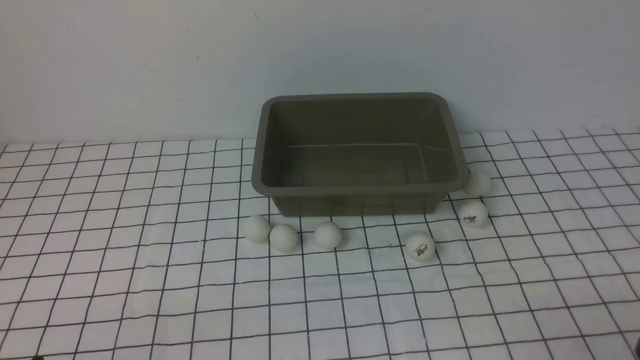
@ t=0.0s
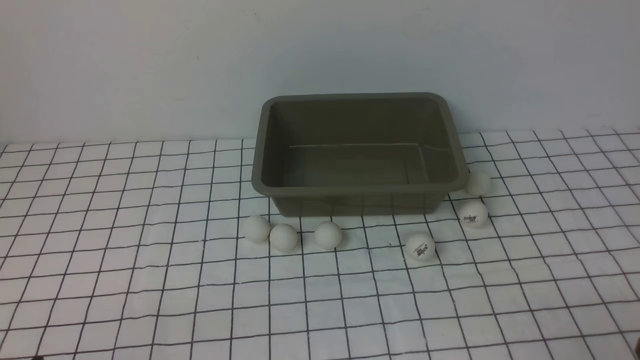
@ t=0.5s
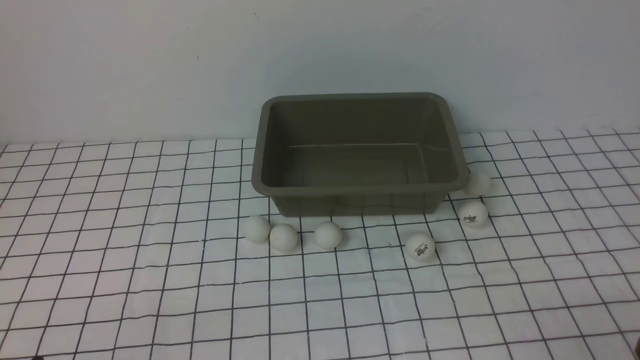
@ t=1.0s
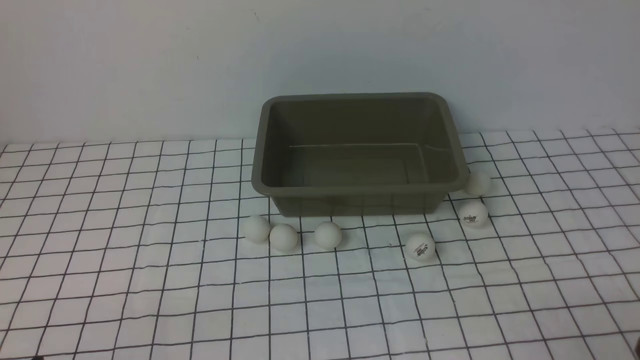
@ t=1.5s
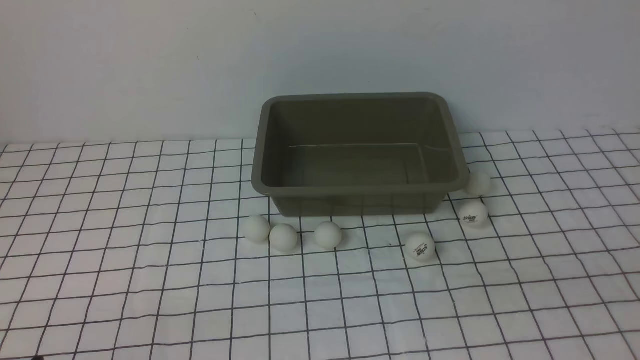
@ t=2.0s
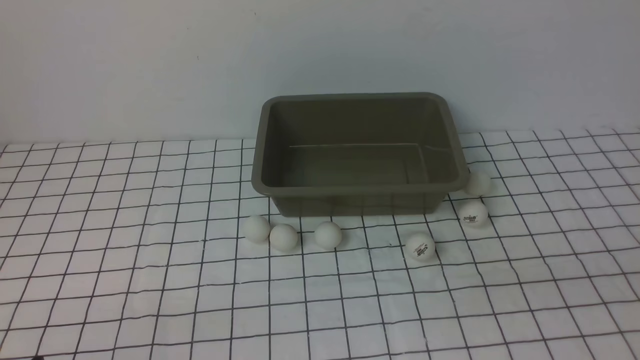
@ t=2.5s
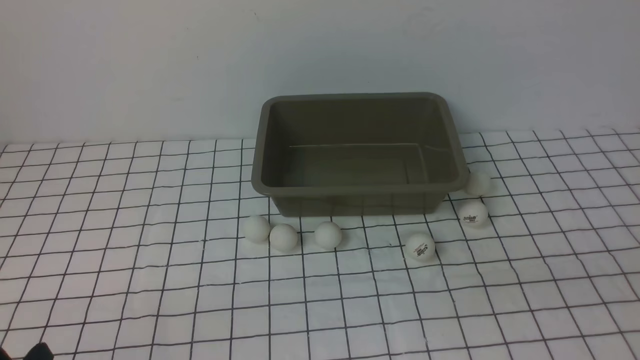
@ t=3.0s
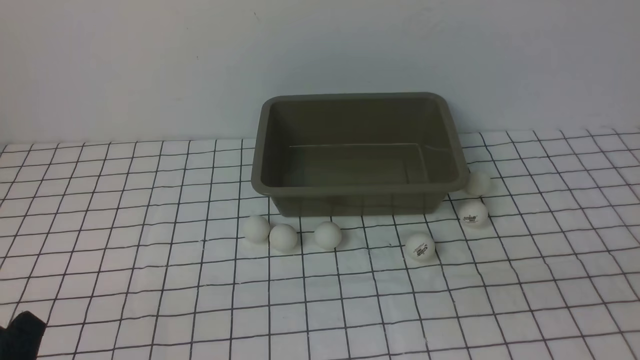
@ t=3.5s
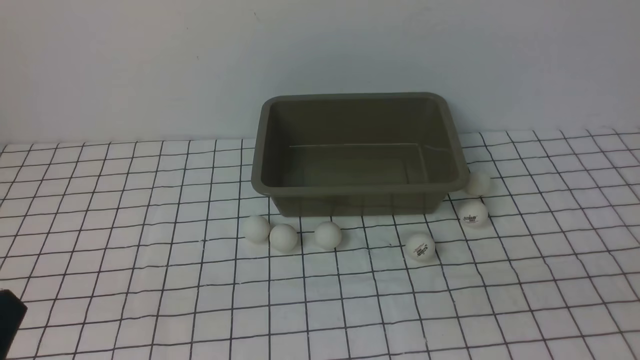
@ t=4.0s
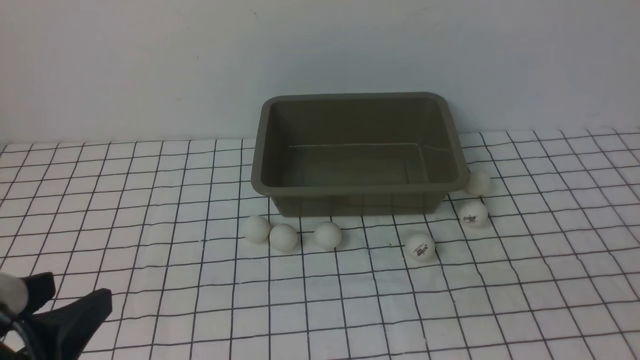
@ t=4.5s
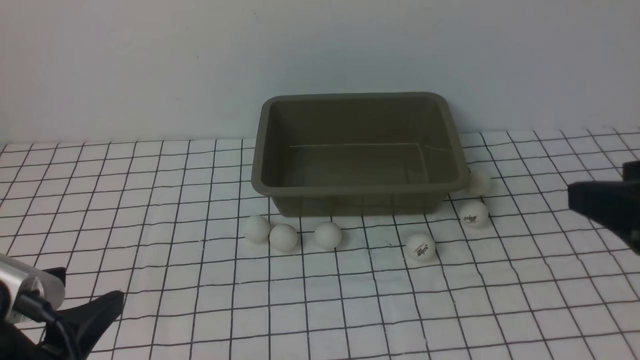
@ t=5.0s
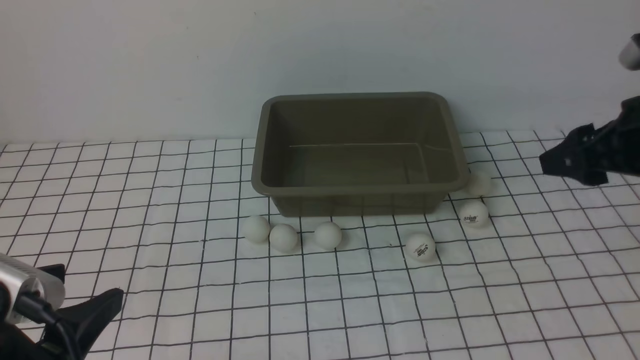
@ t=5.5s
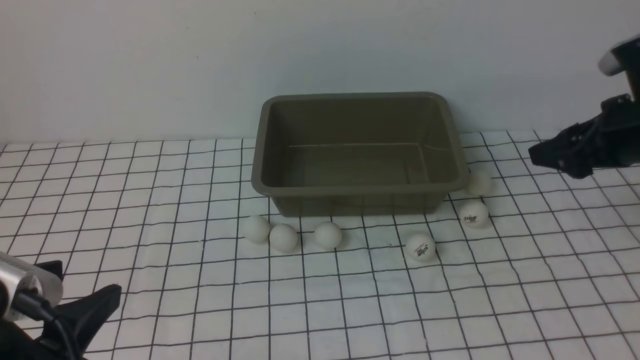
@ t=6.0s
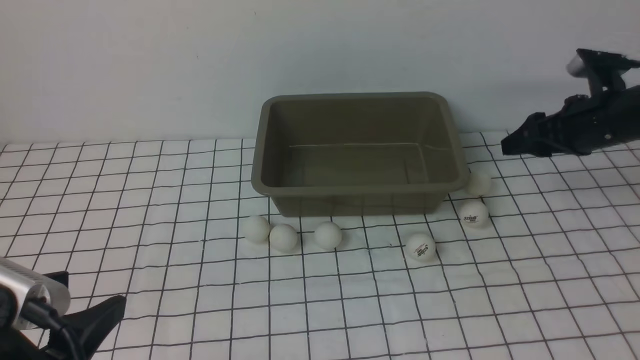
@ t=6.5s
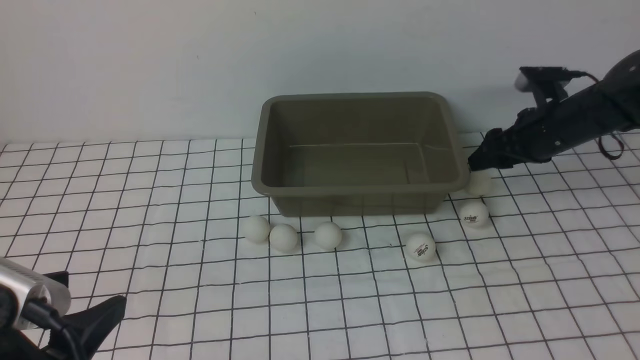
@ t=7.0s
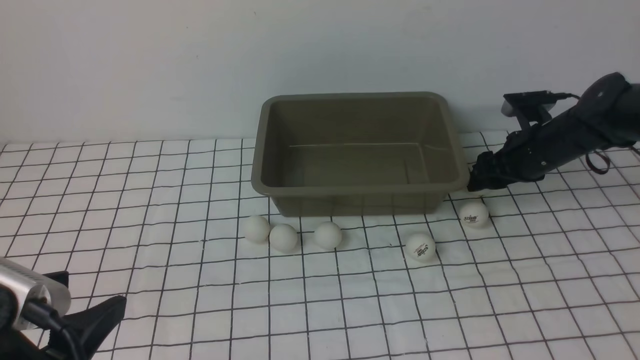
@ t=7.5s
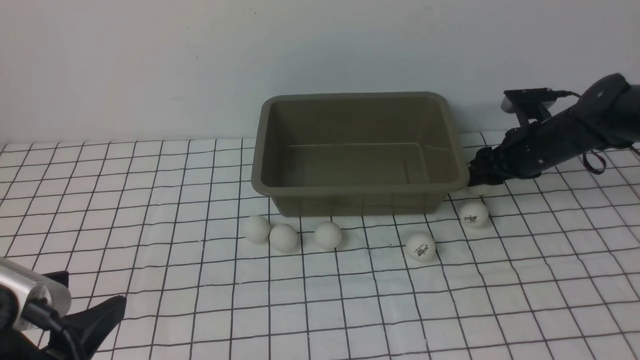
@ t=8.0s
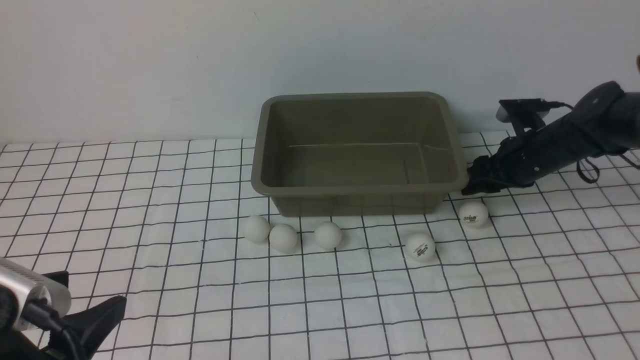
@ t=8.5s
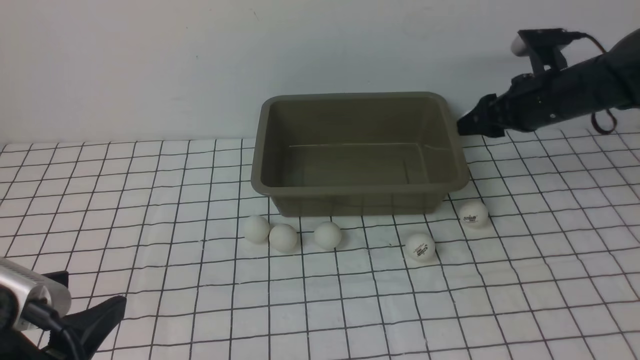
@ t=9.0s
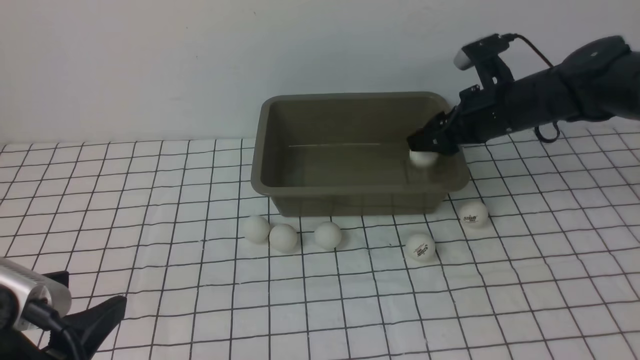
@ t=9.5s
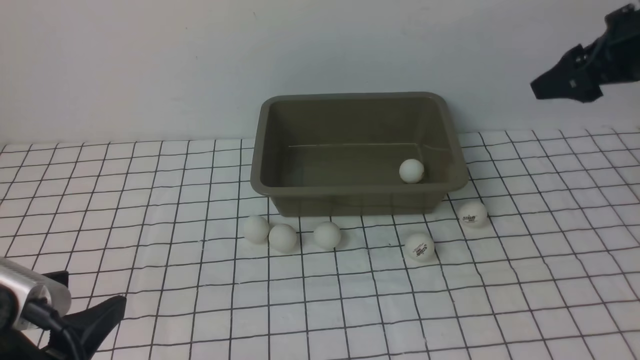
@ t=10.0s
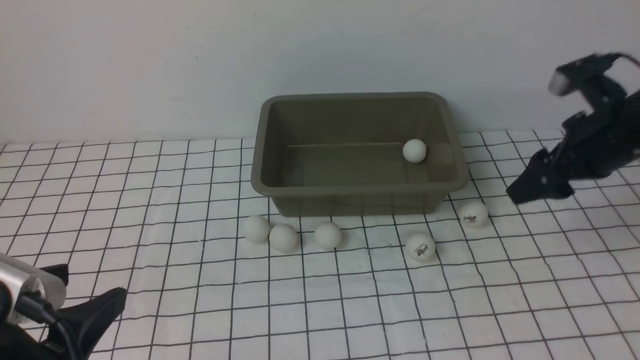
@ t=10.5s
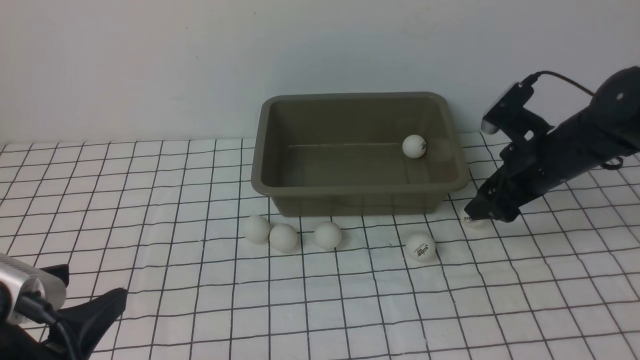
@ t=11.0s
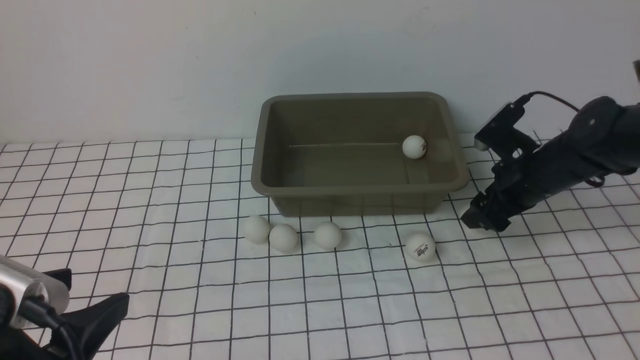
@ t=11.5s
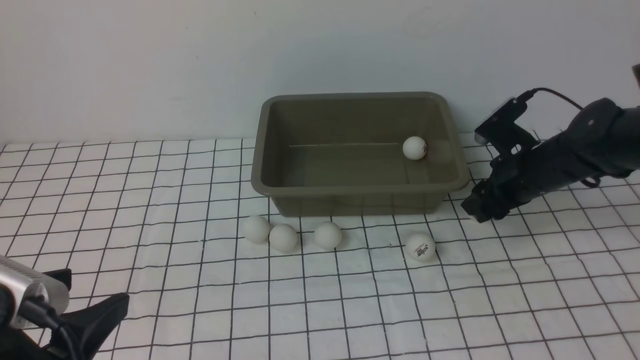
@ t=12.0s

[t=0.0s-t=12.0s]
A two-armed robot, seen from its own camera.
Step, t=0.0s to t=8.5s: use the right arm to clamp the table tennis ball closest to it.
t=4.0s to t=6.0s: The left gripper opens up. Meanwhile the right gripper is displaced forward by approximately 40 cm.
t=6.0s to t=8.0s: The right gripper is displaced downward and forward by some 10 cm.
t=8.0s to t=10.0s: The right gripper heads upward, covering roughly 20 cm, and opens up.
t=10.0s to t=12.0s: The right gripper shifts about 15 cm downward, and closes up.

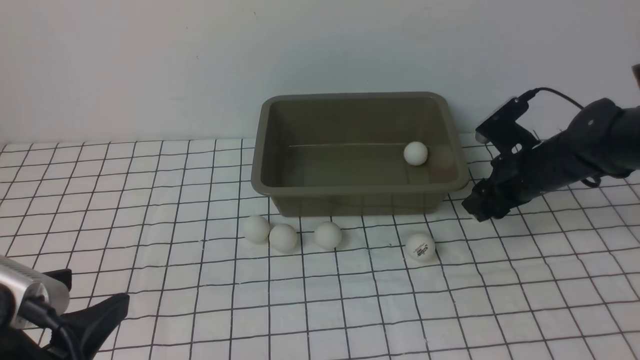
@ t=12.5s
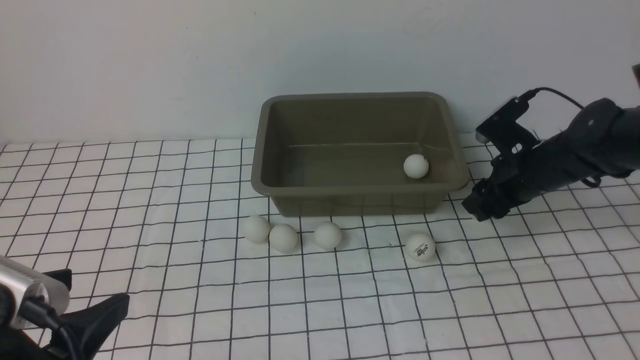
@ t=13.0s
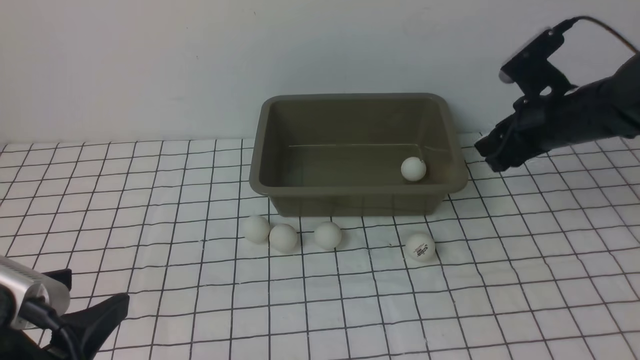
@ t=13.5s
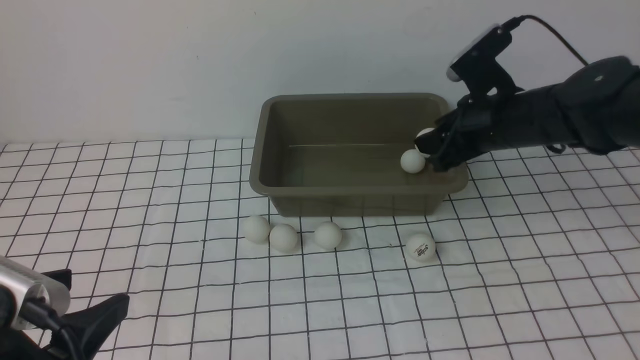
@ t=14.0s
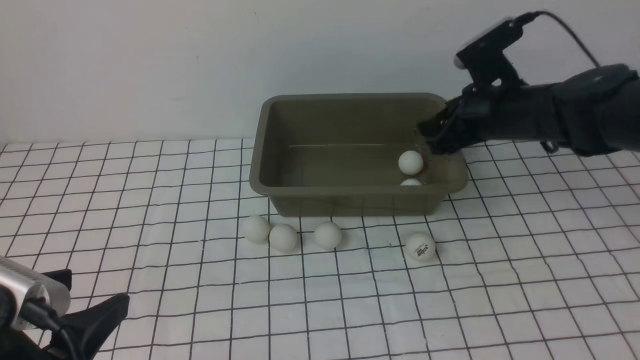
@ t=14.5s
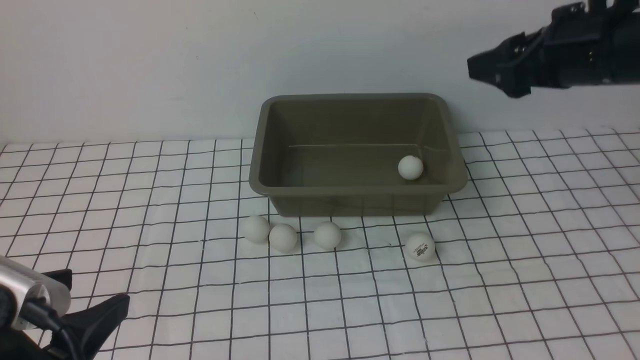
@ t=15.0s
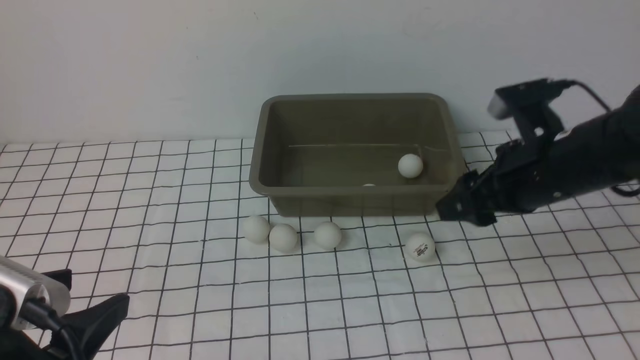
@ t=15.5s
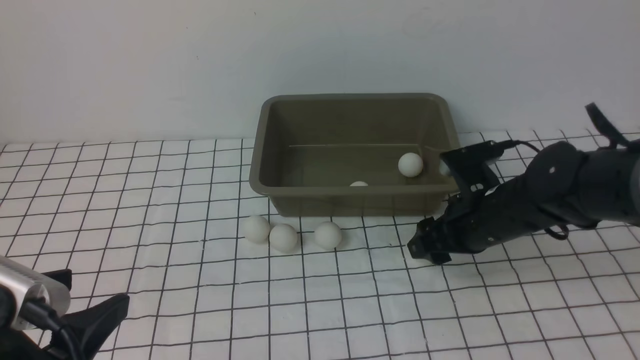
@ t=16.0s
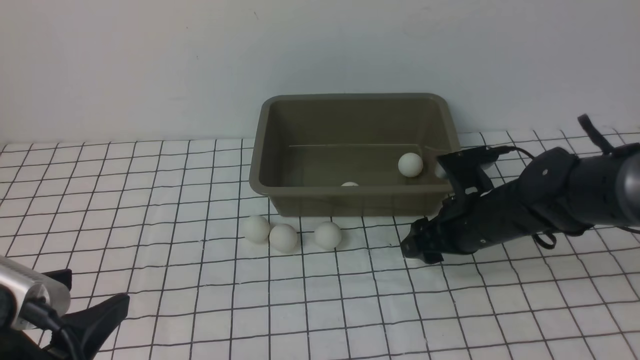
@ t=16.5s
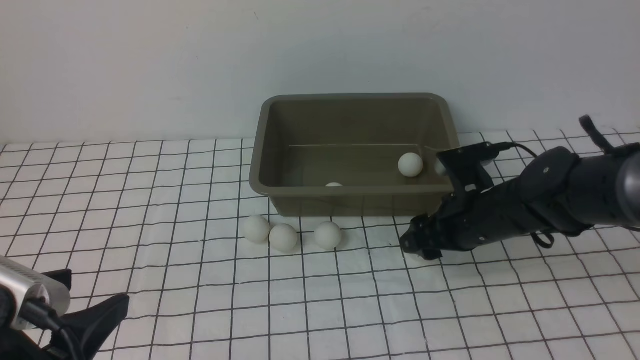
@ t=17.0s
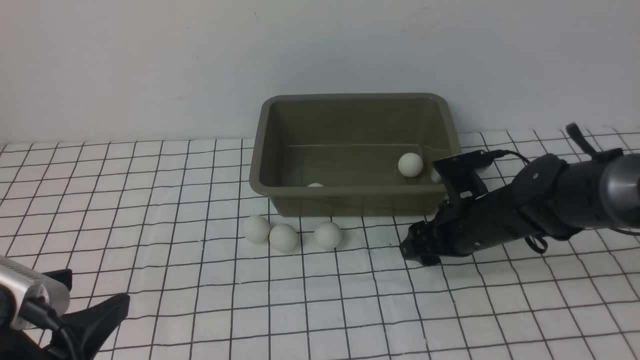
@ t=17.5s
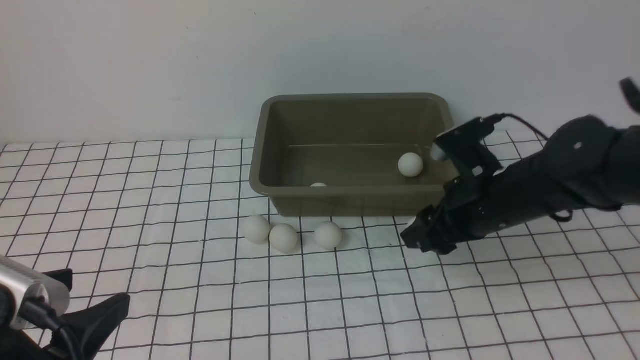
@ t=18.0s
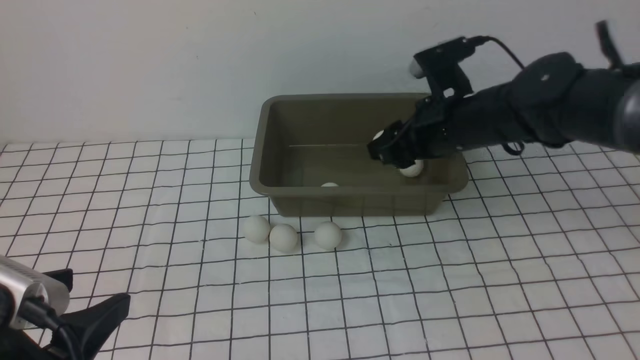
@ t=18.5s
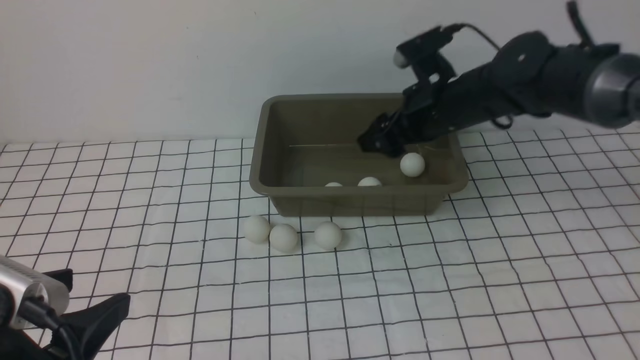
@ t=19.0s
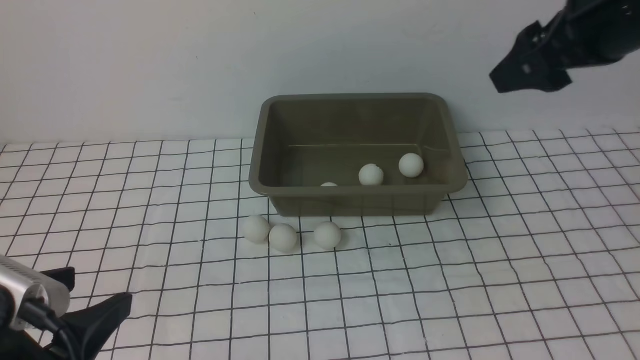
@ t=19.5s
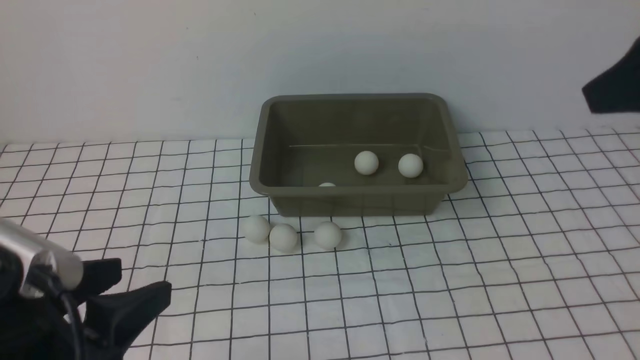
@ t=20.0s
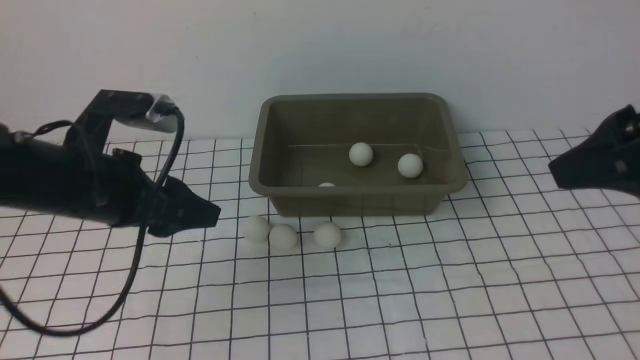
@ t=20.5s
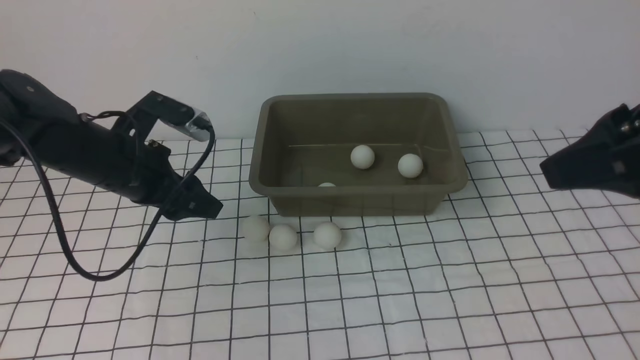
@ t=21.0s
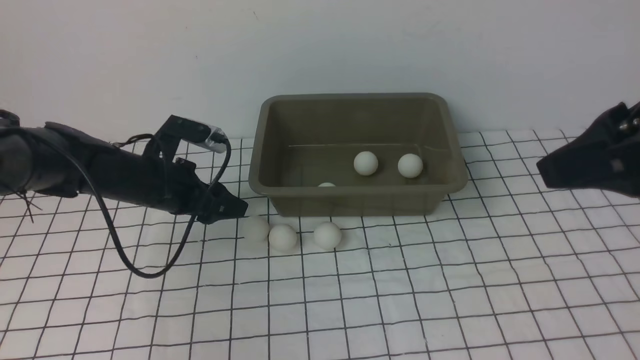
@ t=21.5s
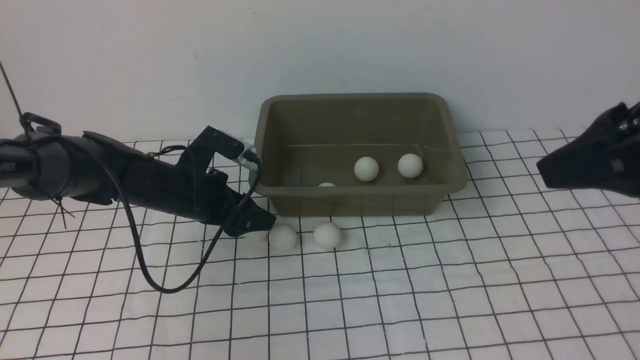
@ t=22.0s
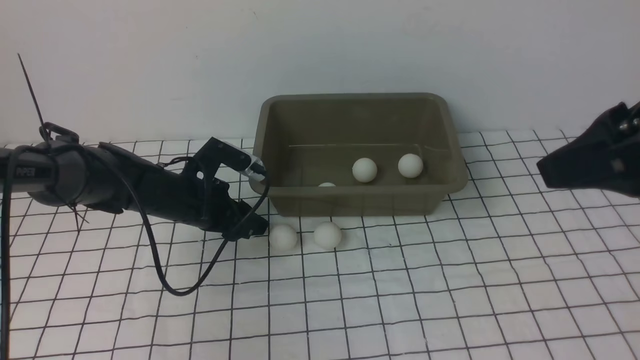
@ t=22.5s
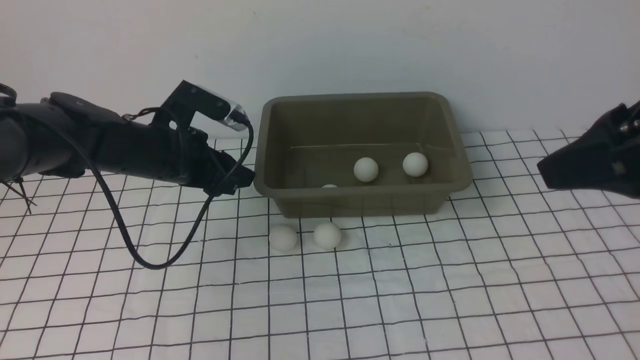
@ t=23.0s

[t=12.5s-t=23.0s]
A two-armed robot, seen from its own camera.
Step, t=14.0s to t=14.5s: use the right arm to put the table tennis ball into the box.
Step, t=15.0s to t=18.0s: use the right arm to clamp the table tennis ball closest to it.
Step, t=18.5s to t=19.0s: use the right arm to put the table tennis ball into the box.
Step, t=19.5s to t=22.5s: use the left arm to clamp the table tennis ball closest to it.
t=12.5s to t=14.5s: The right gripper goes roughly 10 cm upward, and opens.
t=14.5s to t=16.5s: The right gripper moves downward and backward, approximately 15 cm.
t=16.5s to t=19.0s: The right gripper is displaced upward and forward by about 15 cm, and opens its fingers.
t=19.0s to t=21.0s: The left gripper travels forward by roughly 25 cm. The right gripper goes approximately 30 cm backward, upward and to the right.
t=21.0s to t=23.0s: The left gripper reaches some 10 cm downward, then returns, and closes.
